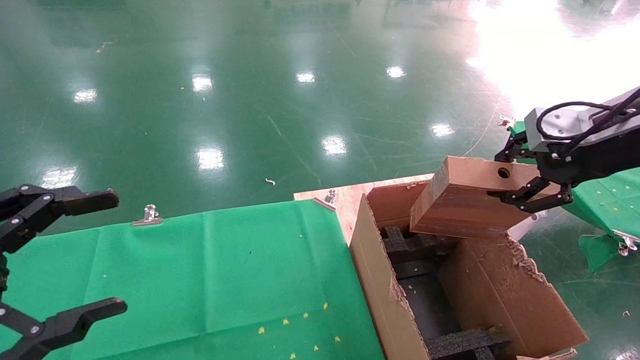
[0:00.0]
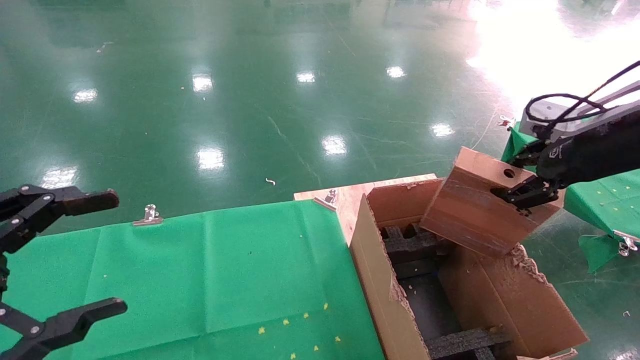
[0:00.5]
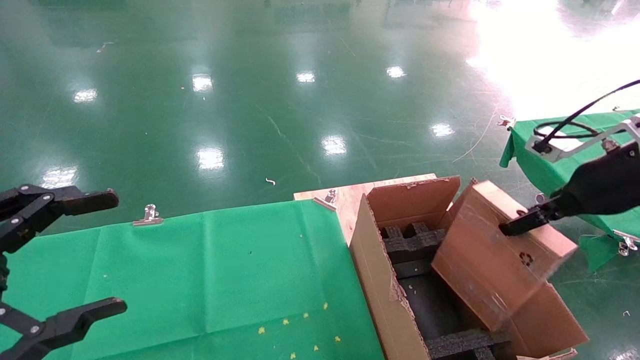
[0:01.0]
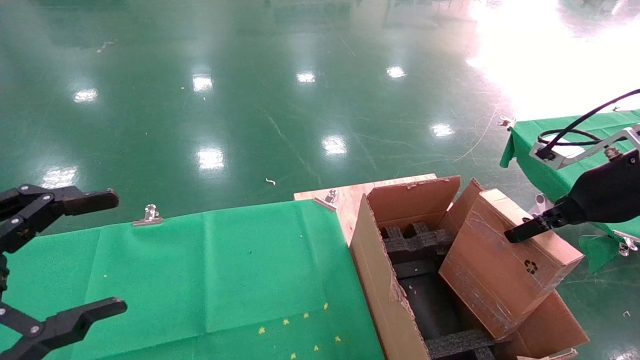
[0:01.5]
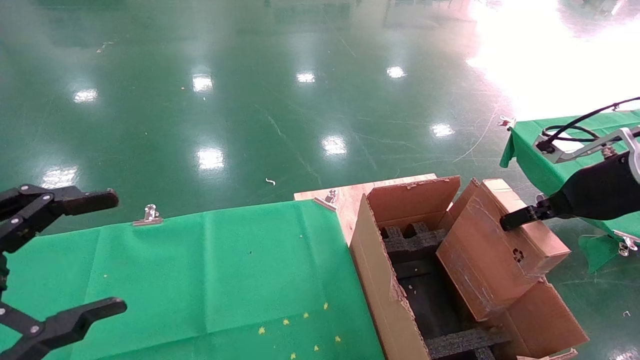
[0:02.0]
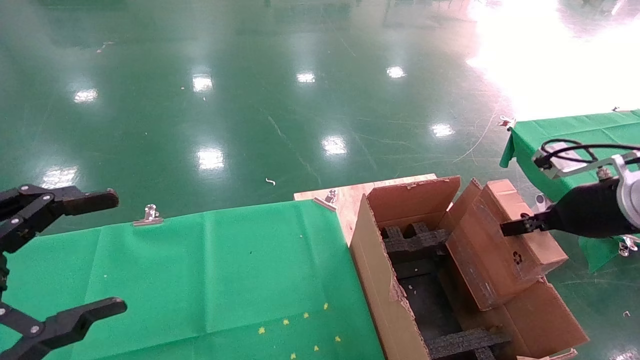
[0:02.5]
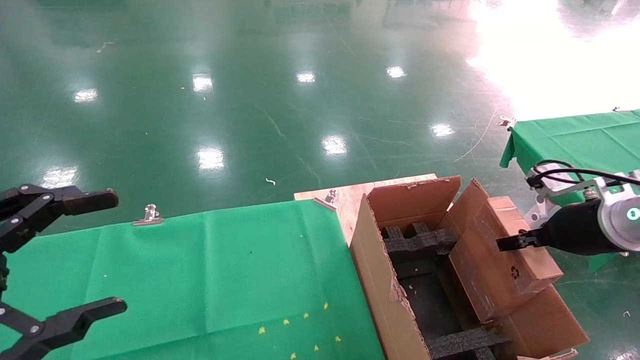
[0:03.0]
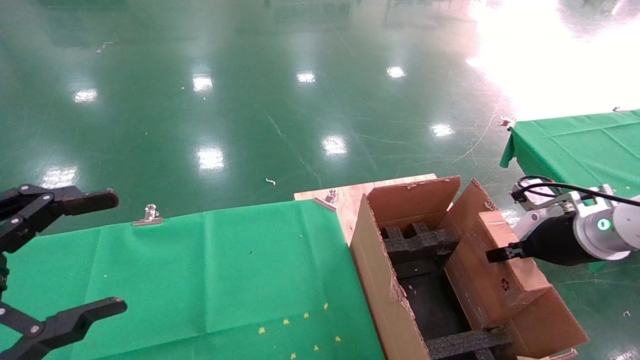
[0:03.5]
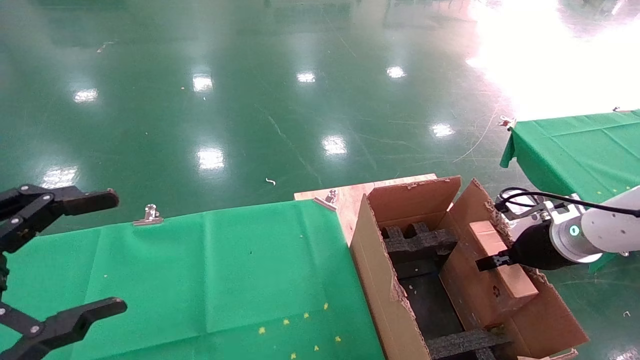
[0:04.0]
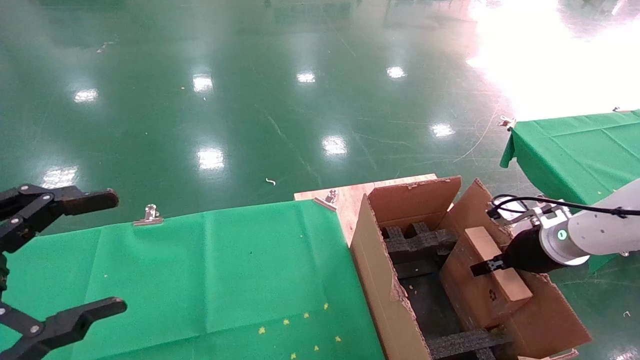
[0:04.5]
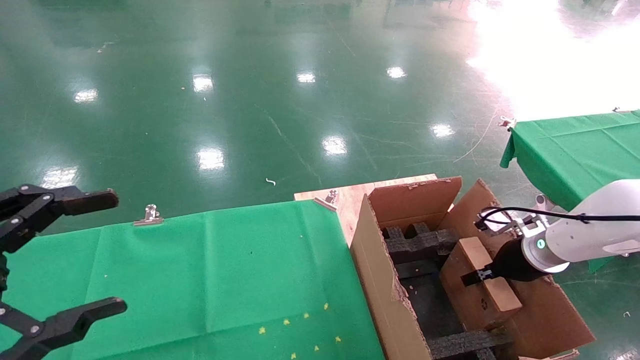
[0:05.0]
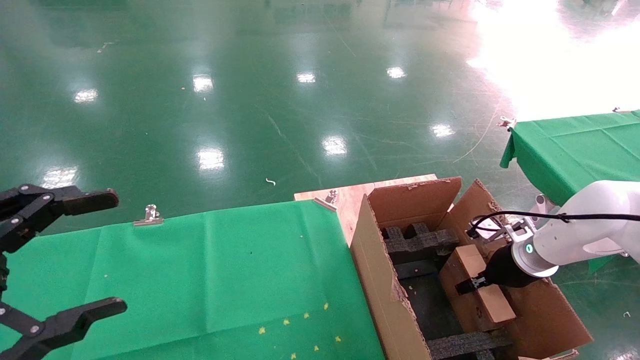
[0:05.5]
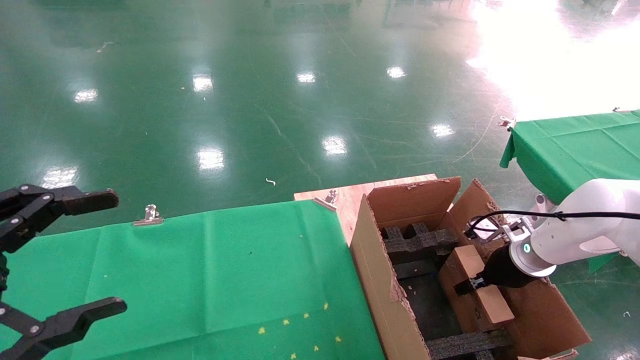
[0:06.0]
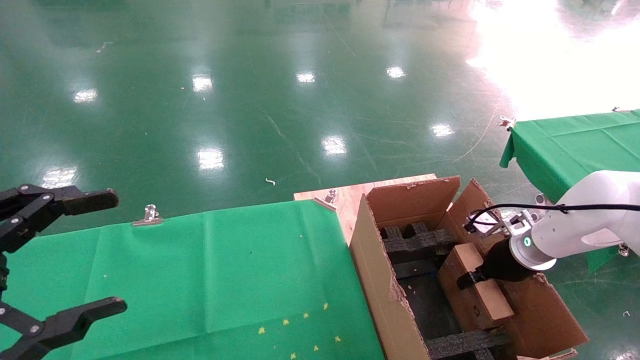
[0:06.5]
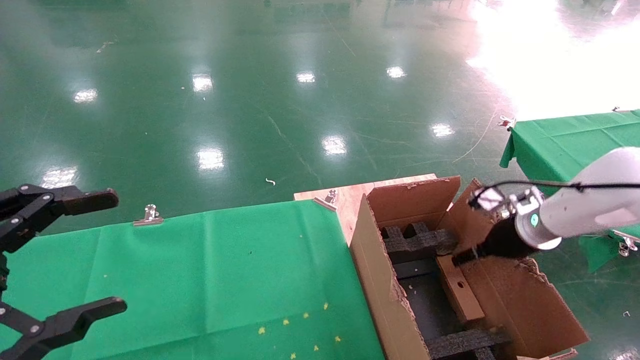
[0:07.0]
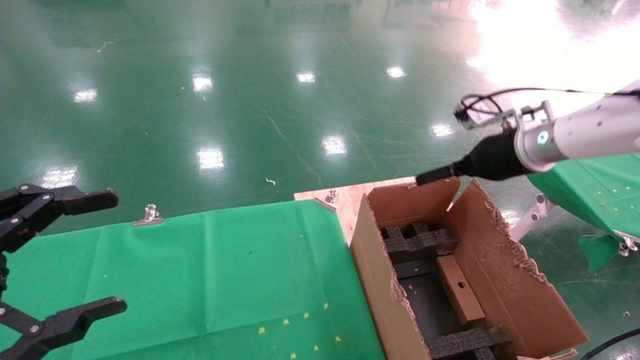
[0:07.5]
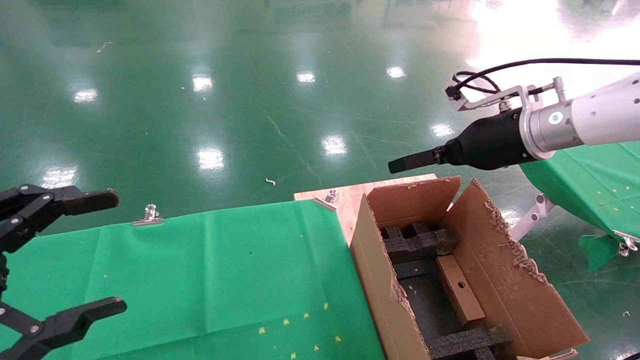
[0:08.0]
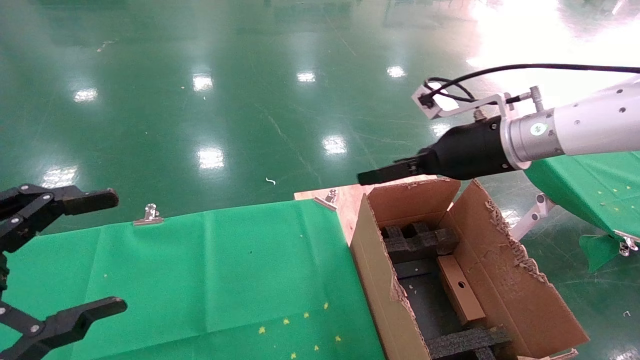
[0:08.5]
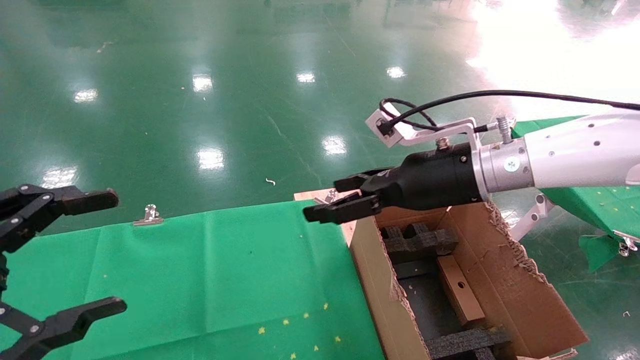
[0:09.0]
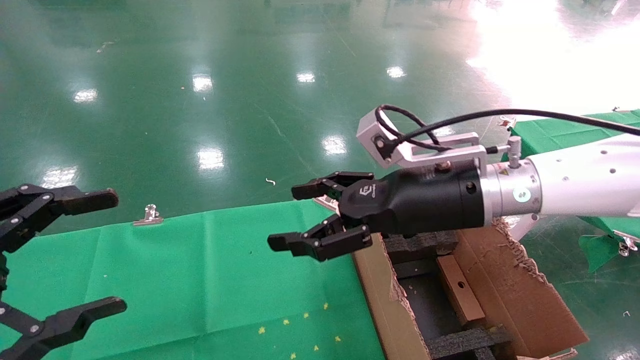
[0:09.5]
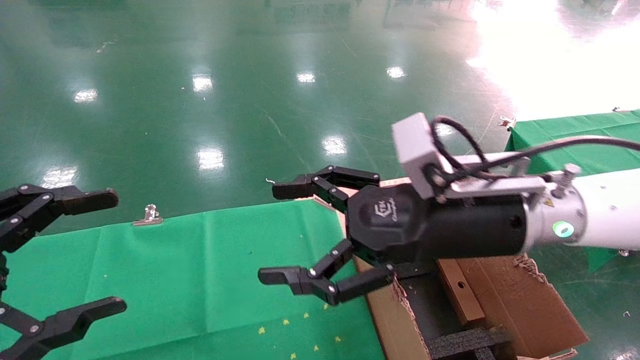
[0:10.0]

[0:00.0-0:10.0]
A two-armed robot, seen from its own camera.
Task of the whole recording: using a robotic arm to pick up a cardboard box and palace it the carton.
Step, 0:00.0 to 0:07.0: Place the mouse and the power cord paper box into the container.
0:00.0 to 0:02.0: The right gripper is displaced downward by some 10 cm.
0:02.0 to 0:04.0: The right gripper goes approximately 15 cm downward and forward.
0:04.0 to 0:06.0: The right gripper heads downward, covering some 5 cm.
0:06.0 to 0:08.0: The right gripper goes about 25 cm upward, and opens its fingers.
0:08.0 to 0:10.0: The right gripper shifts approximately 15 cm to the left and backward.
